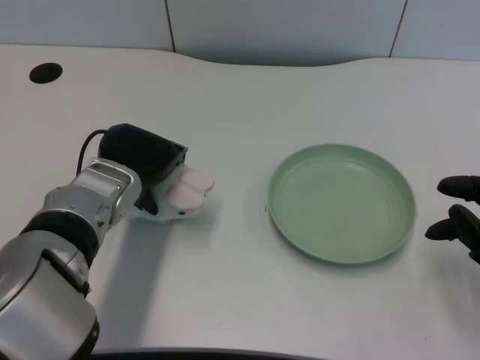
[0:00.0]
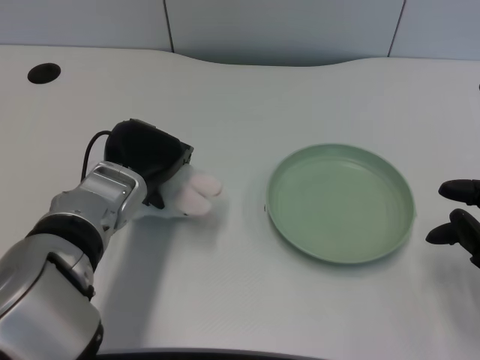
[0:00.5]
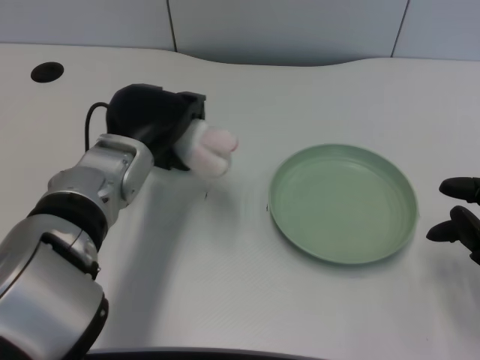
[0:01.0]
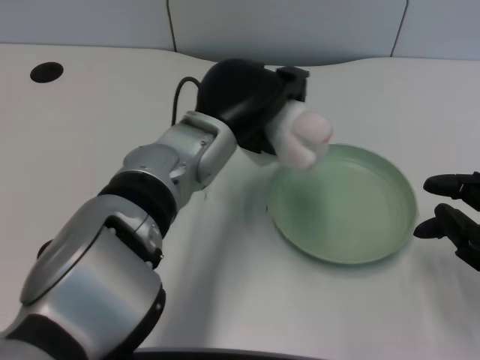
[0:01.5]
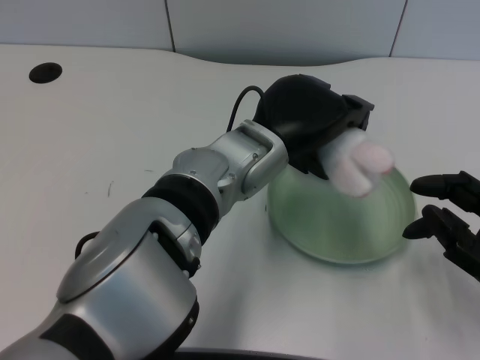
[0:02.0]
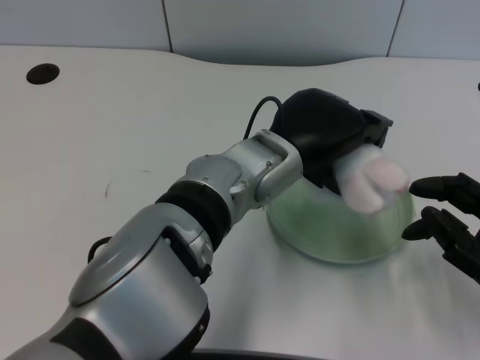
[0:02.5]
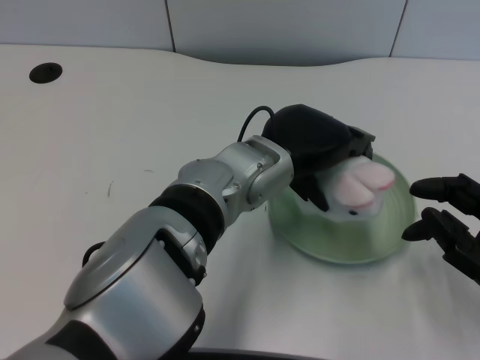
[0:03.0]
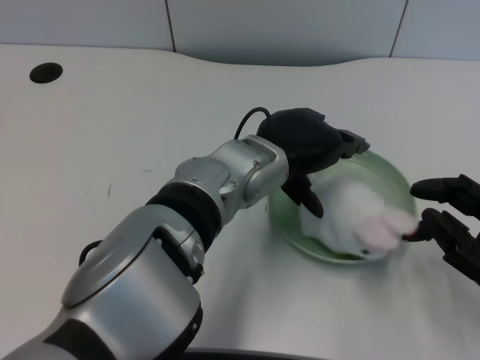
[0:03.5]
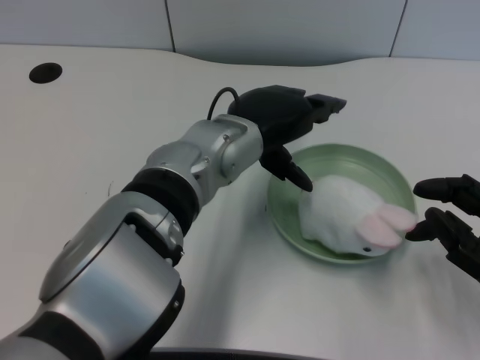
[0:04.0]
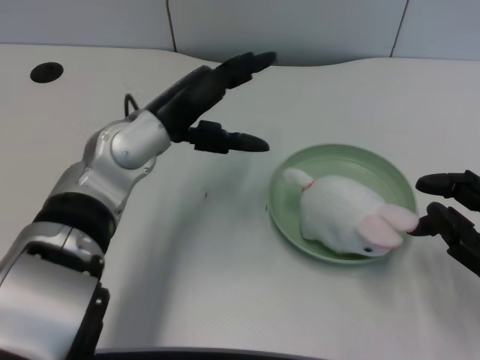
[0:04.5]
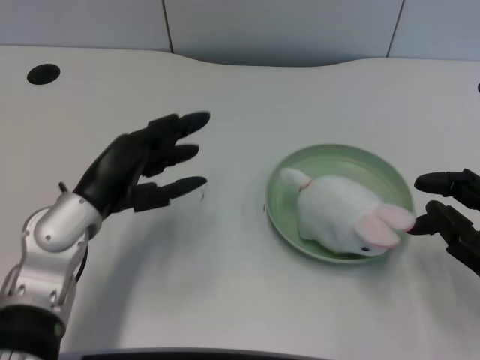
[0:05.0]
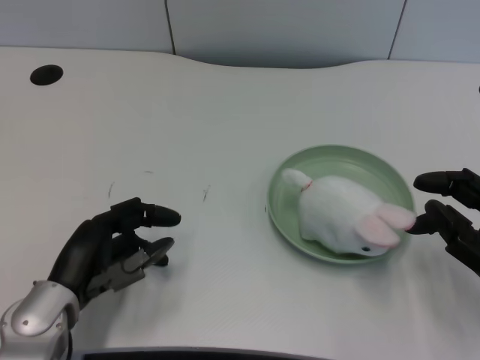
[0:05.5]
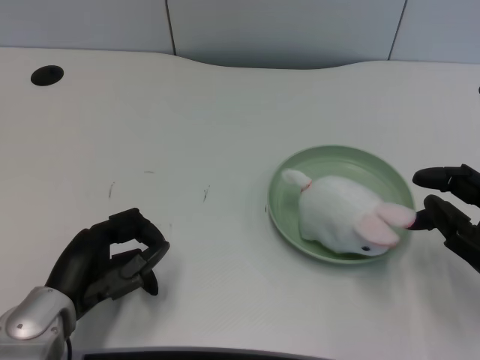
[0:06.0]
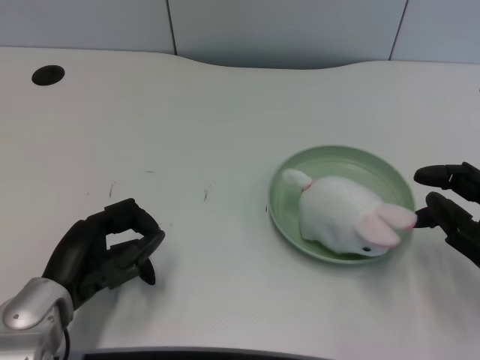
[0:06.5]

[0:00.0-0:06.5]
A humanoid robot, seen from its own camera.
Task of the whole recording: pick up the rabbit doll from the table and place it on the plate.
Step, 0:00.5 to 0:03.5: Place the rabbit doll into the plate with the left gripper.
0:00.0 to 0:02.0: The left hand shifts about 15 cm to the right.
0:02.0 to 0:04.5: The left hand travels to the left by some 10 cm.
0:04.5 to 0:06.5: The left hand goes approximately 20 cm backward, downward and to the left.
